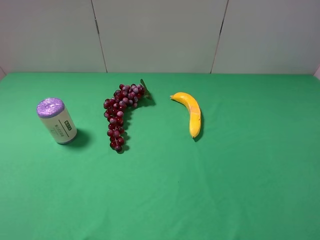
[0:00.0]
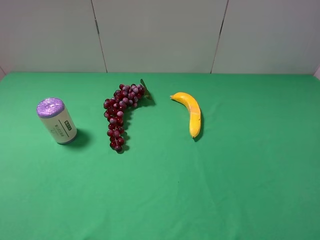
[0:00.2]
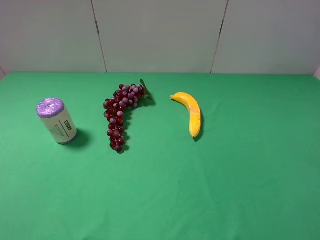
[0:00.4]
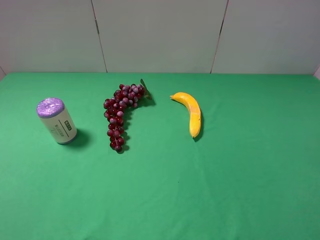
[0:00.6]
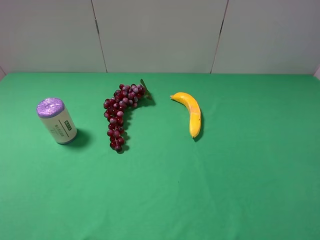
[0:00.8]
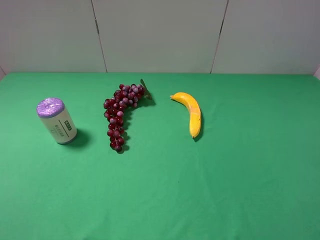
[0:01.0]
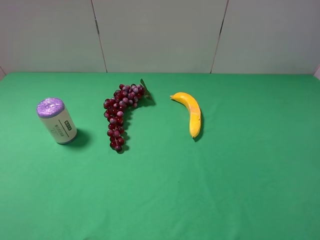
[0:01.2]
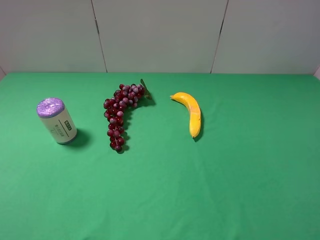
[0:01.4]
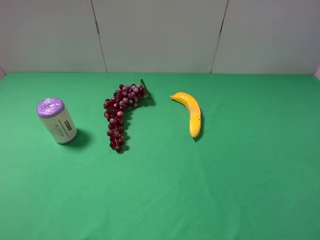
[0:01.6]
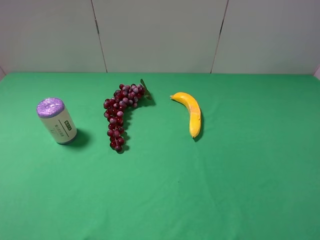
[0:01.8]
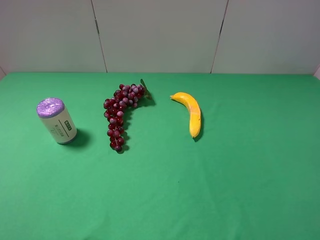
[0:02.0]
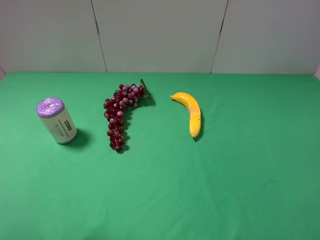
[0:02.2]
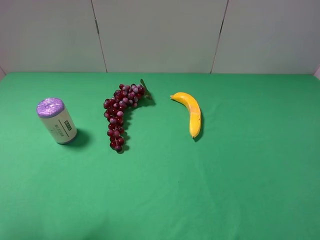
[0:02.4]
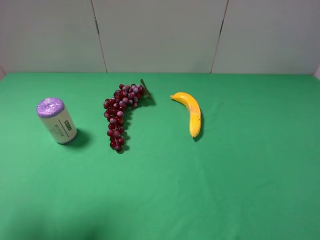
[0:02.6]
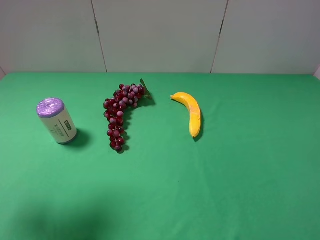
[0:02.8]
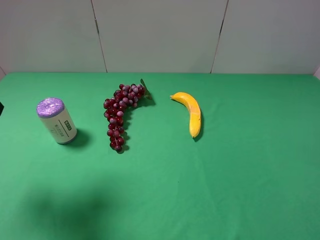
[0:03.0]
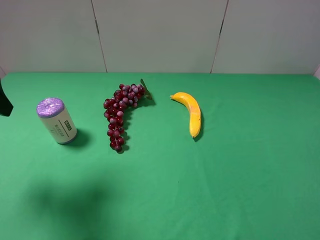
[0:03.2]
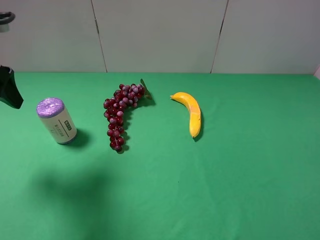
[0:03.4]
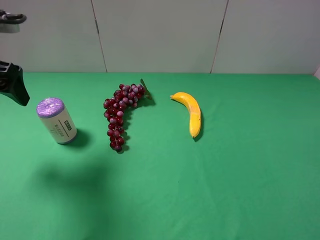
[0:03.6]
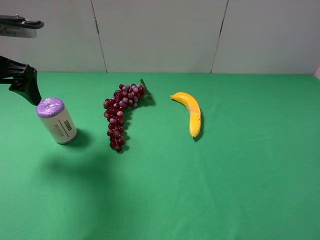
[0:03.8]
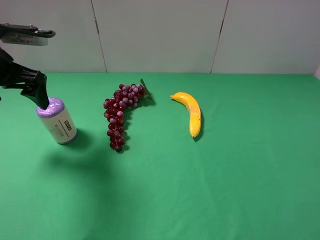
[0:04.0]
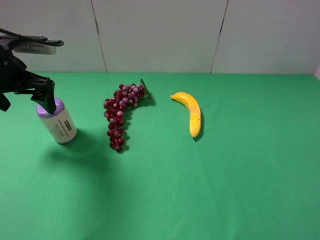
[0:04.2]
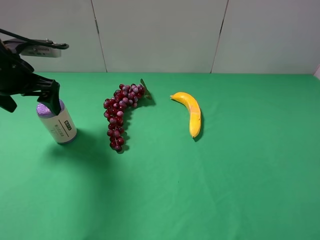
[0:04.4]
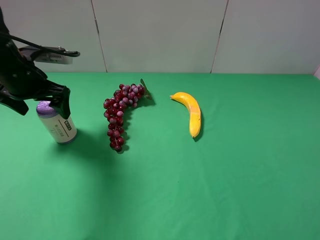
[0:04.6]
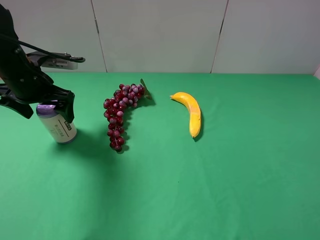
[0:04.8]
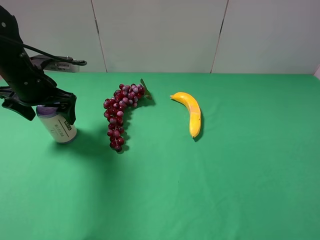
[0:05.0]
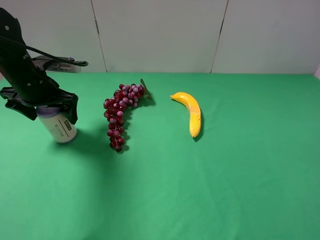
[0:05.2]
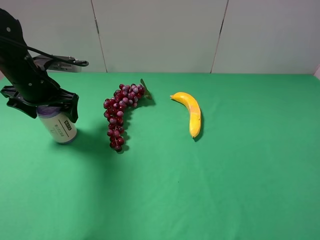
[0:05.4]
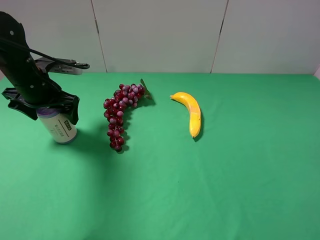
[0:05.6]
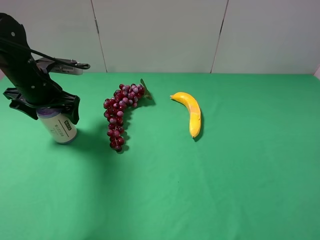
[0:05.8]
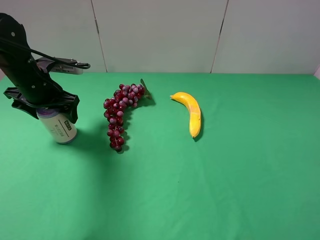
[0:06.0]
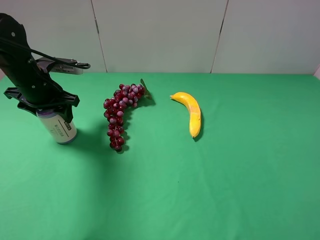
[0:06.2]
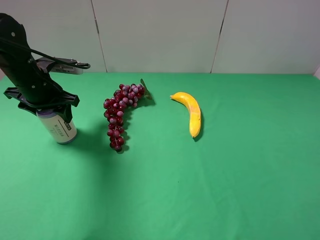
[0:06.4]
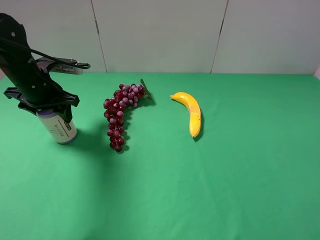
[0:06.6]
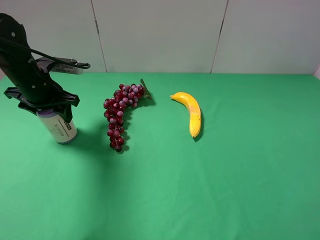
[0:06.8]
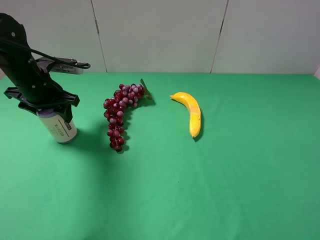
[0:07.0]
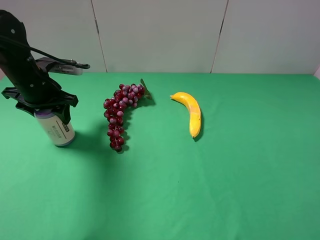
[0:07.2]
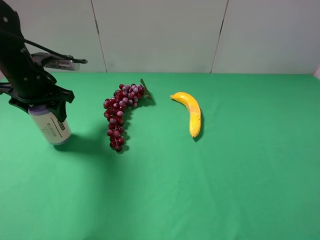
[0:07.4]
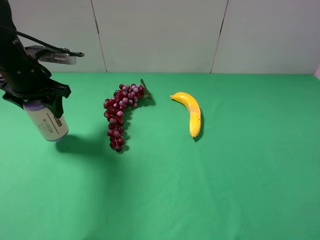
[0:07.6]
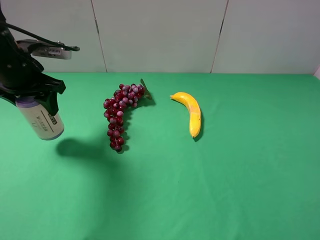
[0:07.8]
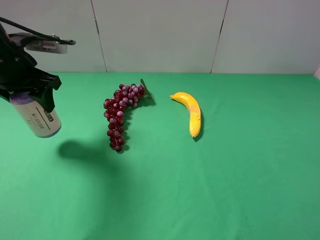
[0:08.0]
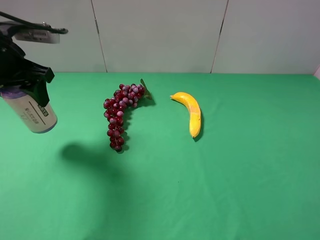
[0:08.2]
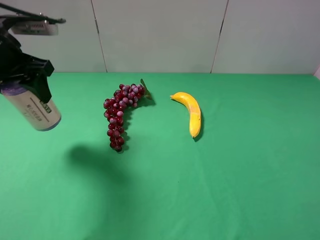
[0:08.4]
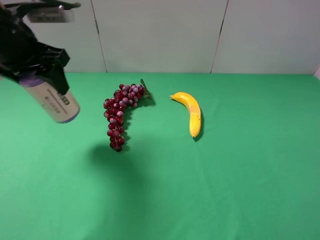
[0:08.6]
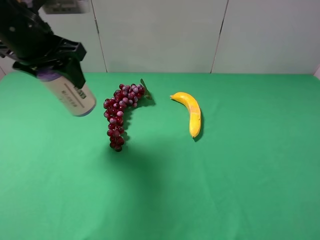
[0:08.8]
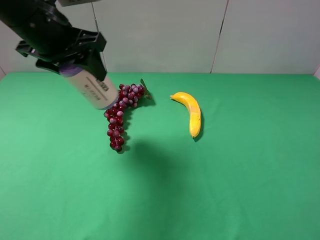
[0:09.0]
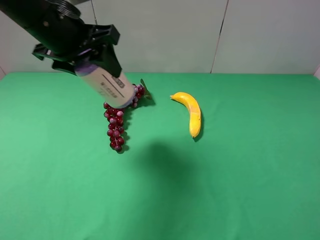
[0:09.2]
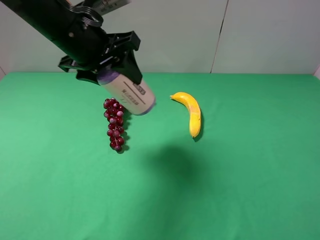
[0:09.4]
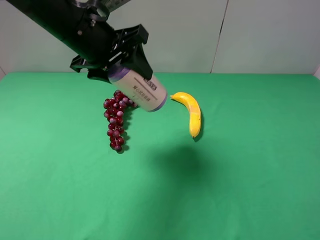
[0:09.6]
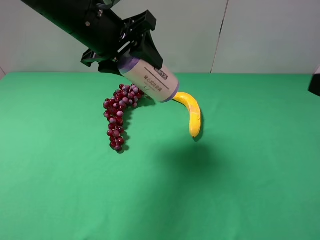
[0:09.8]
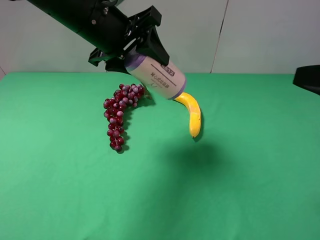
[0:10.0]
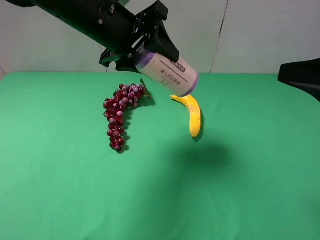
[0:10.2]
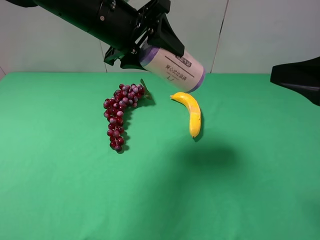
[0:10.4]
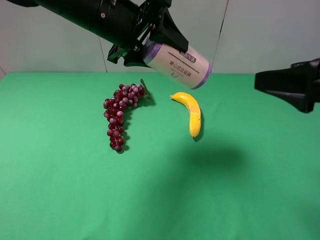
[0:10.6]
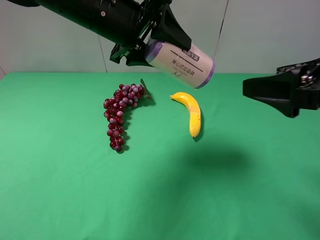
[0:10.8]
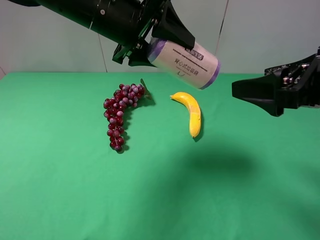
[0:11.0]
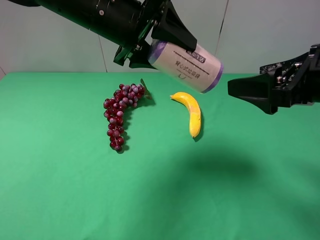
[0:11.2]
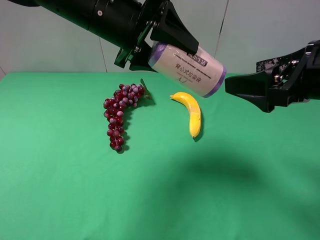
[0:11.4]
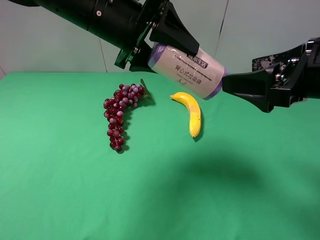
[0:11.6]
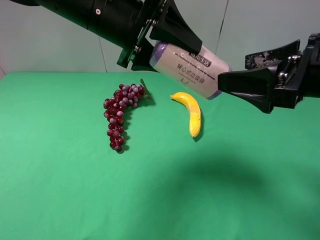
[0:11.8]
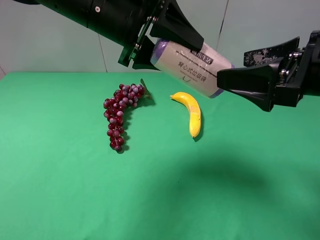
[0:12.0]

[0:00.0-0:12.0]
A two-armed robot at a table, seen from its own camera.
Task of the whole recording: use the left gripper to pick up the item and transfer it from the left gripper to the right gripper.
Step, 0:00.0 to 0:06.4: Use the left gripper to grab the purple garbage bag on the left side of the table.
0:01.6 to 0:03.0: The left gripper is displaced forward by roughly 20 cm.
0:03.0 to 0:04.4: The left gripper heads forward and downward, covering about 15 cm.
0:04.4 to 0:06.0: The left gripper heads downward, covering some 5 cm, and closes.
0:06.0 to 0:07.6: The left gripper closes its fingers.
0:07.6 to 0:09.0: The left gripper travels upward and to the right by approximately 15 cm.
0:09.0 to 0:10.4: The left gripper shifts approximately 10 cm to the right; the right gripper moves forward, some 15 cm.
0:10.4 to 0:12.0: The right gripper shifts by some 5 cm.

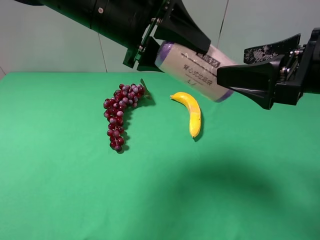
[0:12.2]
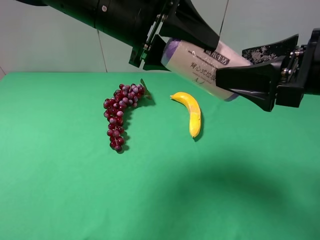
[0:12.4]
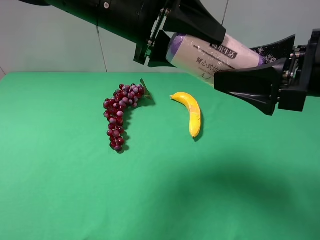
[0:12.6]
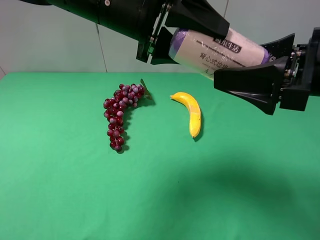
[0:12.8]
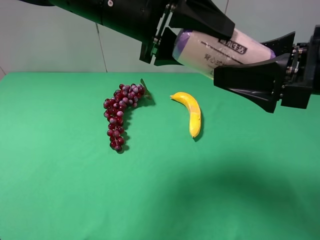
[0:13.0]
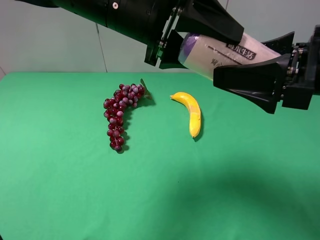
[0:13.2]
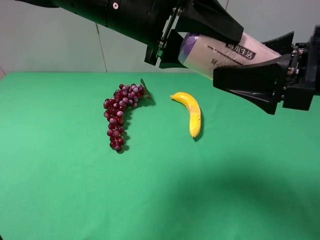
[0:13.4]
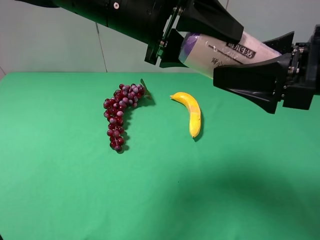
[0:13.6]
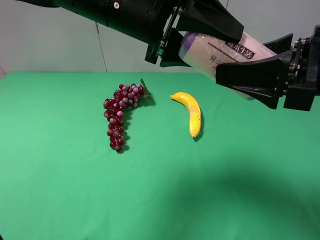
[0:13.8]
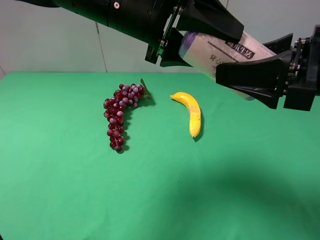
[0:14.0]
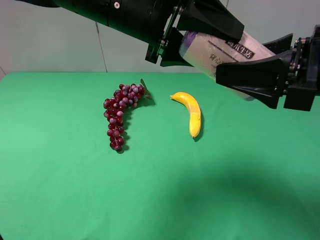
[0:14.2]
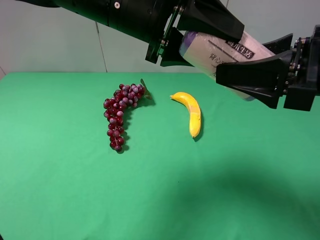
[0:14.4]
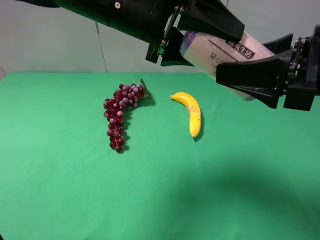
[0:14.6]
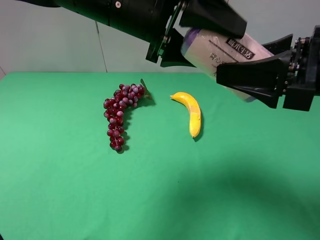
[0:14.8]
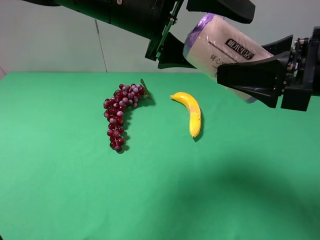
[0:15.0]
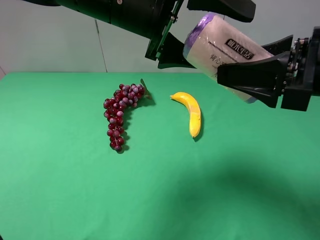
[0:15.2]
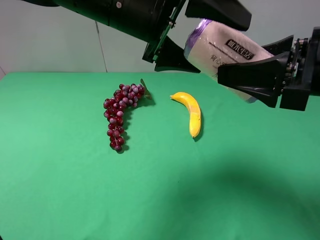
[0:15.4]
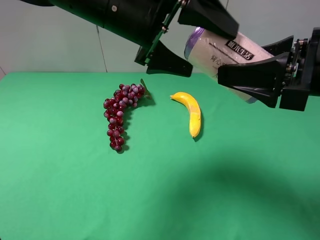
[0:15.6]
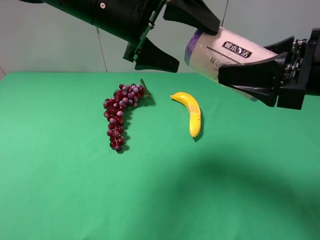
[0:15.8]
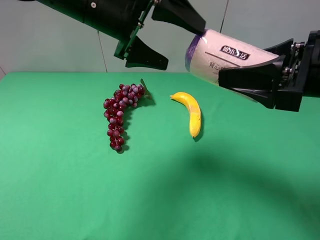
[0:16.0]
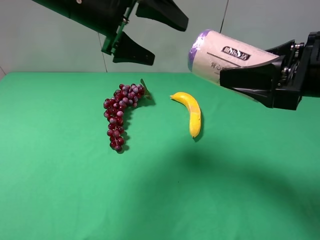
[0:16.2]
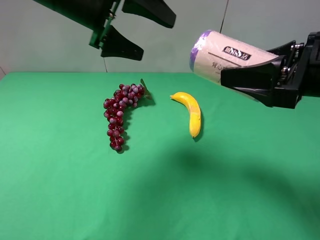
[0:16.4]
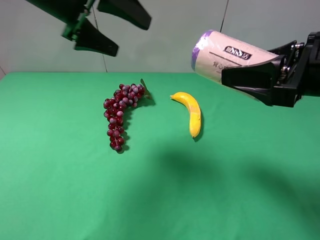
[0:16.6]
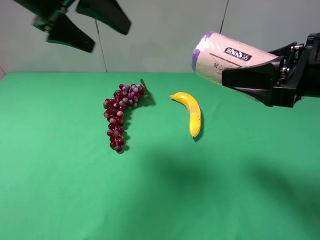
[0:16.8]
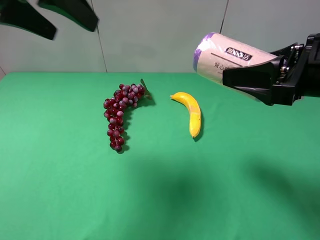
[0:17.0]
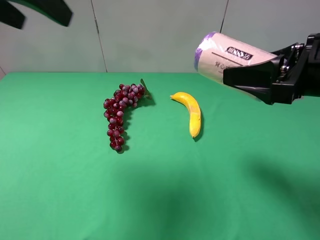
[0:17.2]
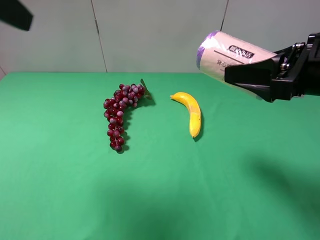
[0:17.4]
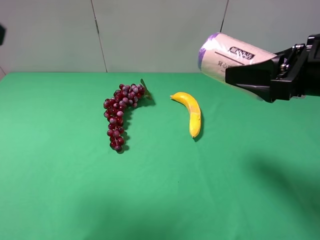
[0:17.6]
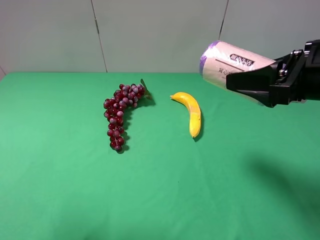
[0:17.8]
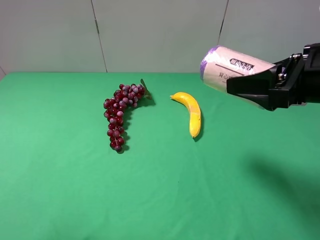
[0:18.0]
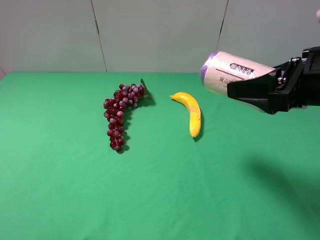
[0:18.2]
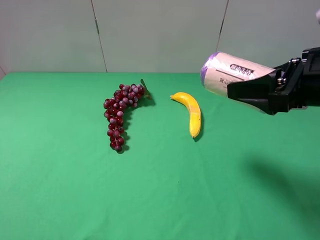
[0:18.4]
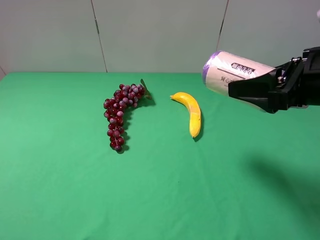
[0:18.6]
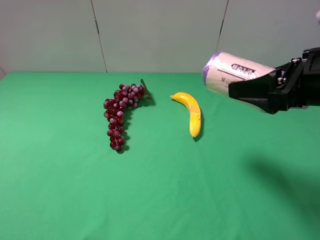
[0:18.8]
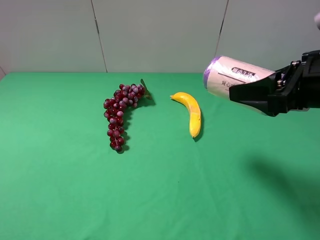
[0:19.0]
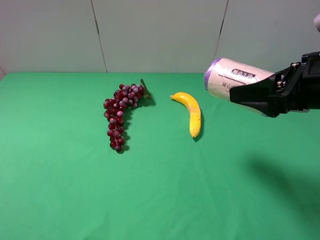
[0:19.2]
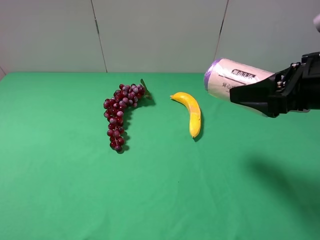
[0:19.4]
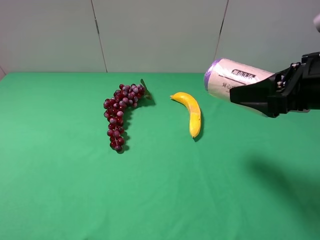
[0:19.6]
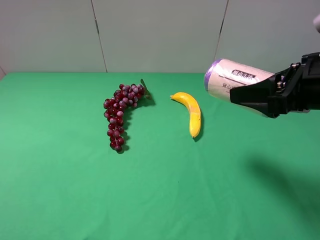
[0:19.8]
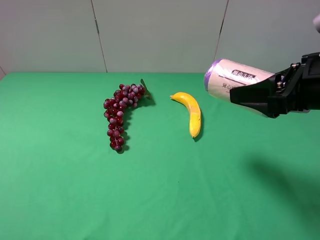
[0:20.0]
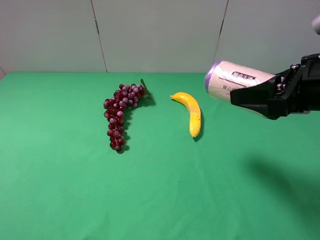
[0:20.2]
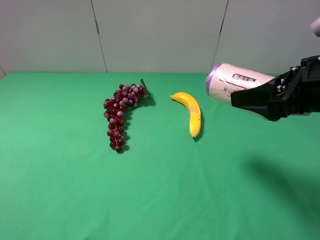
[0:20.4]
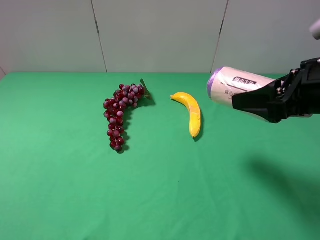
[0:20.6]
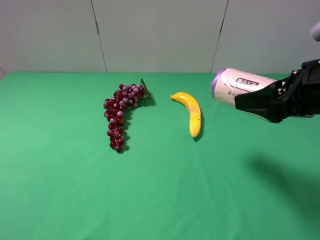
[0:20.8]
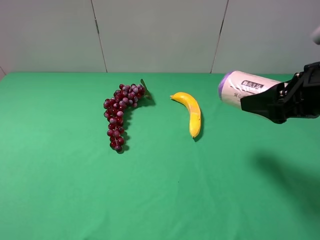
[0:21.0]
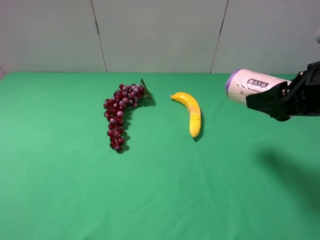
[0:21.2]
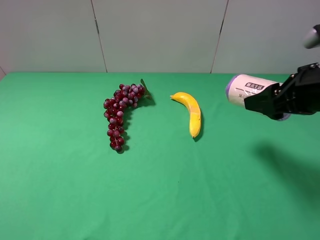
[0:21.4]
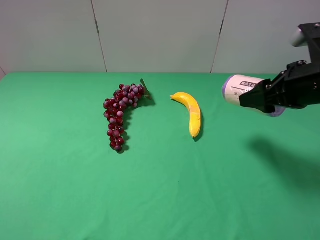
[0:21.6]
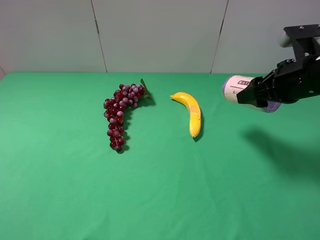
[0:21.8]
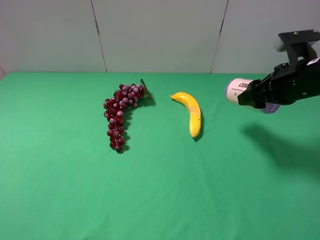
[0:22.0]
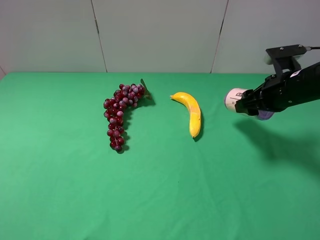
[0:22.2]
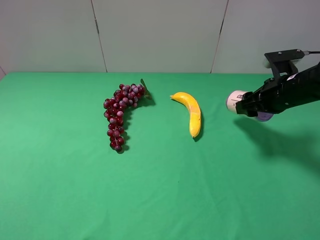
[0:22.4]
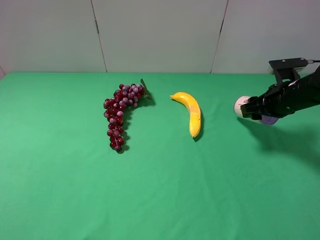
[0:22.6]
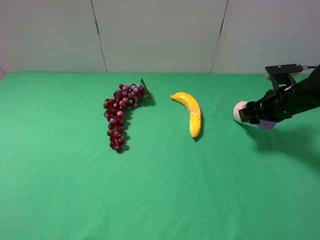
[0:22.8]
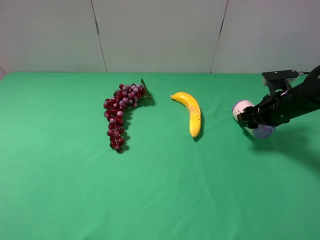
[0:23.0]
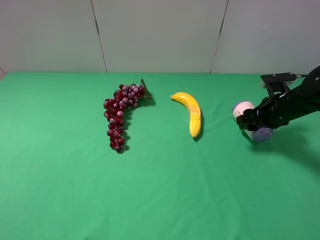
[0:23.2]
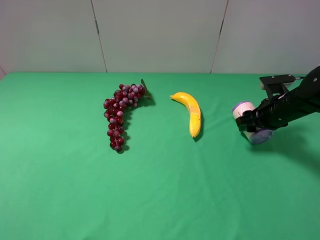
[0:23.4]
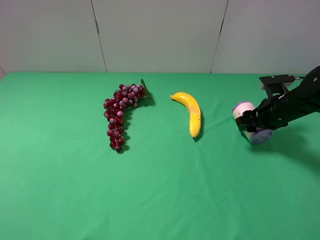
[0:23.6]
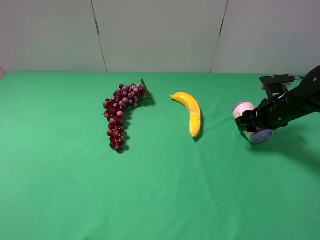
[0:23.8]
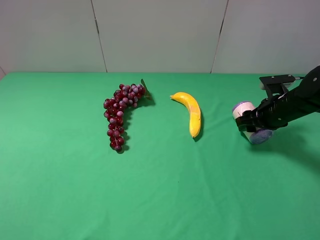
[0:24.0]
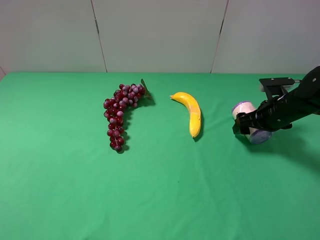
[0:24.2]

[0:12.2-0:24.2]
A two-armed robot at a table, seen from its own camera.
Task of the whole recording: use the left gripper to pick up the item and transfer it from the left gripper to the right gripper.
Step, 0:12.2 to 0:16.0: Pass the purple garbage bag to the right gripper.
0:12.2 to 0:13.8: The right gripper closes up.
0:13.8 to 0:15.2: The left gripper opens up.
0:15.2 to 0:16.6: The left gripper travels to the left by approximately 10 cm.
0:16.6 to 0:18.2: The left gripper shifts some 30 cm backward and to the left.
0:19.8 to 0:21.2: The grippers move only a little.
0:21.2 to 0:22.6: The right gripper shifts about 15 cm forward and downward.
0:22.6 to 0:24.2: The right gripper opens up.
